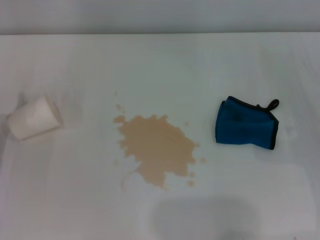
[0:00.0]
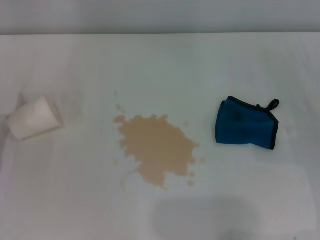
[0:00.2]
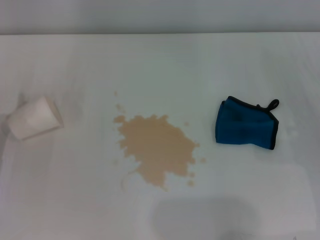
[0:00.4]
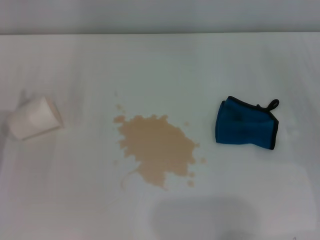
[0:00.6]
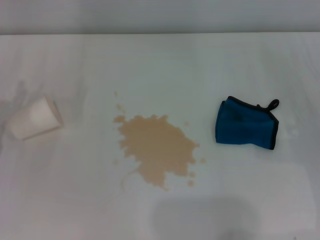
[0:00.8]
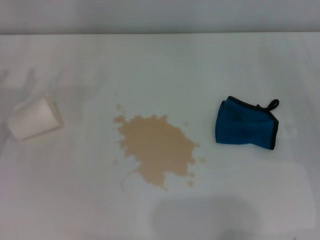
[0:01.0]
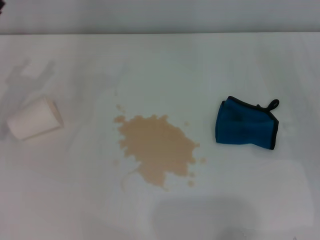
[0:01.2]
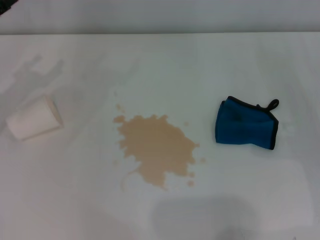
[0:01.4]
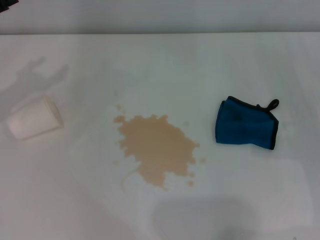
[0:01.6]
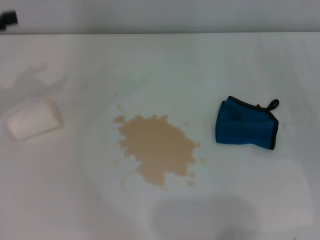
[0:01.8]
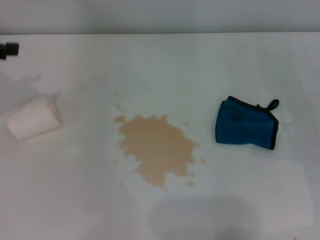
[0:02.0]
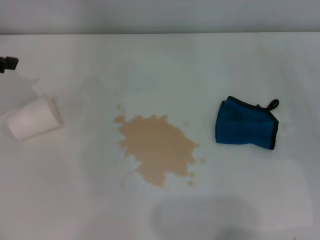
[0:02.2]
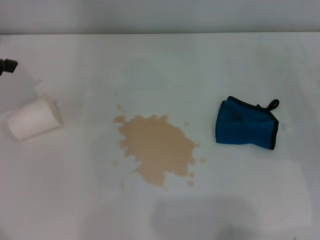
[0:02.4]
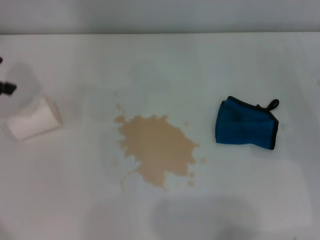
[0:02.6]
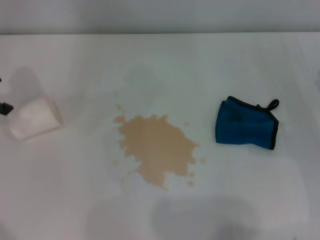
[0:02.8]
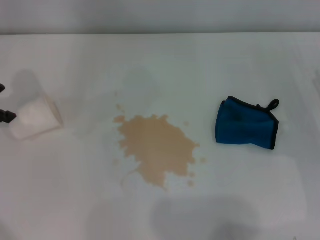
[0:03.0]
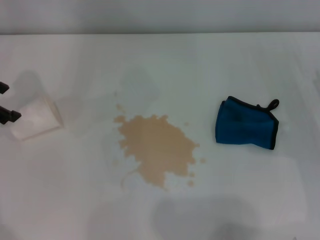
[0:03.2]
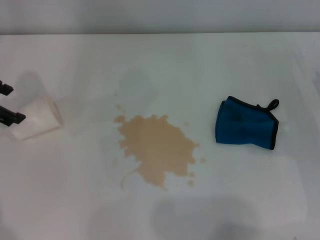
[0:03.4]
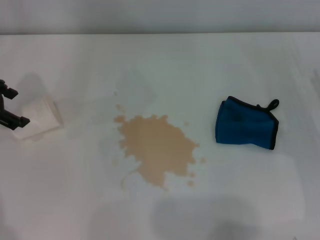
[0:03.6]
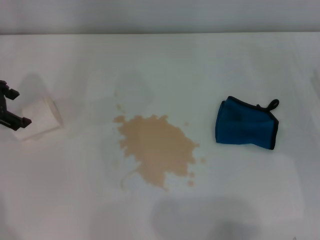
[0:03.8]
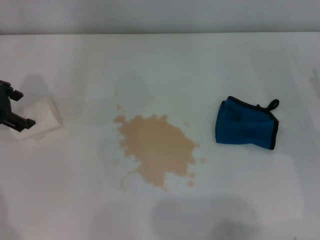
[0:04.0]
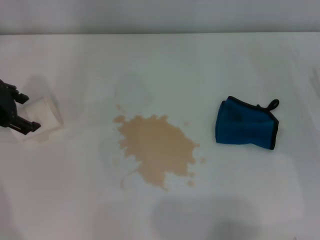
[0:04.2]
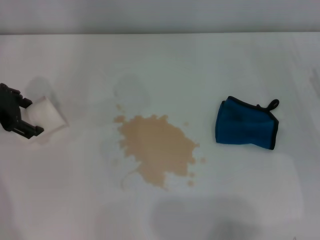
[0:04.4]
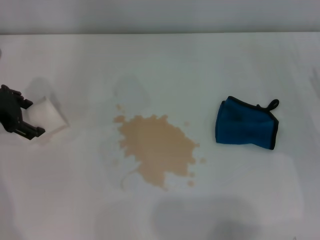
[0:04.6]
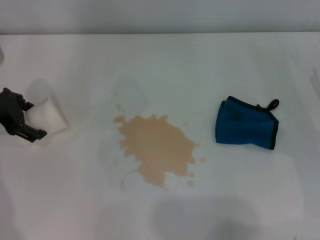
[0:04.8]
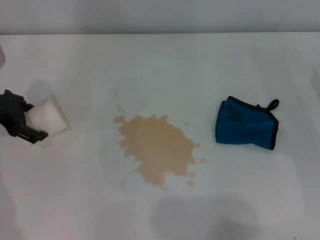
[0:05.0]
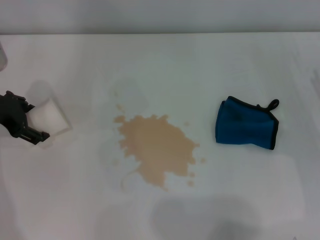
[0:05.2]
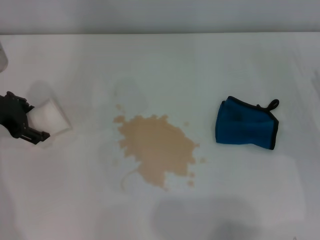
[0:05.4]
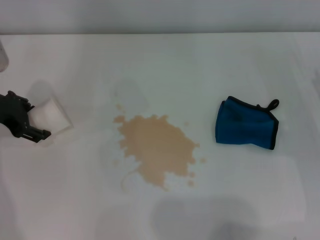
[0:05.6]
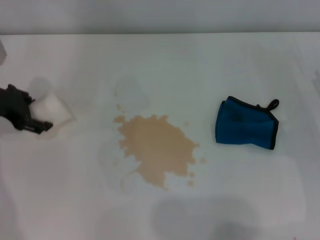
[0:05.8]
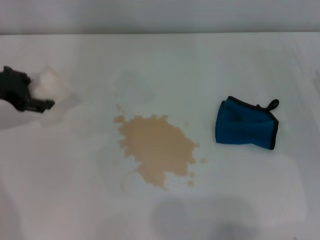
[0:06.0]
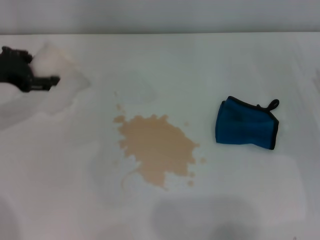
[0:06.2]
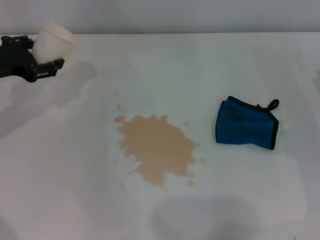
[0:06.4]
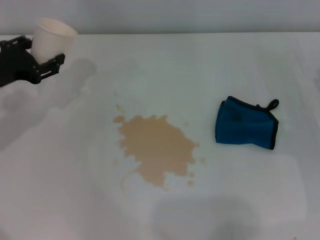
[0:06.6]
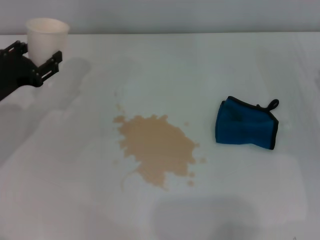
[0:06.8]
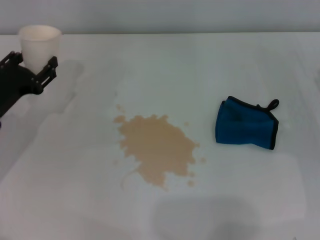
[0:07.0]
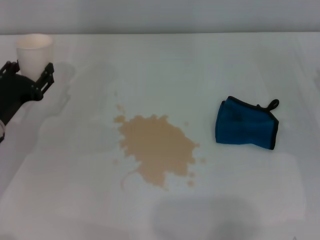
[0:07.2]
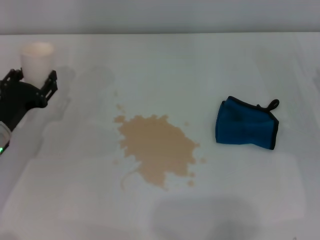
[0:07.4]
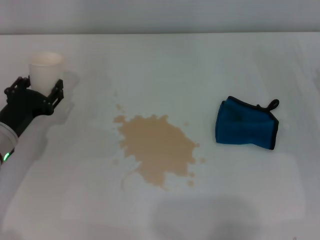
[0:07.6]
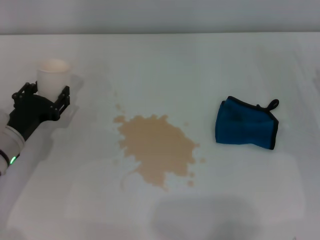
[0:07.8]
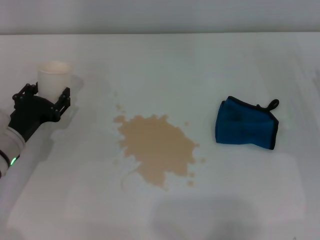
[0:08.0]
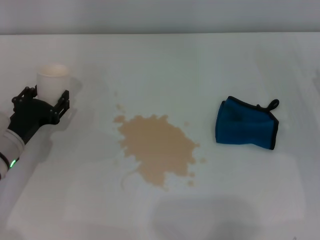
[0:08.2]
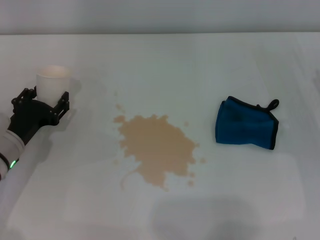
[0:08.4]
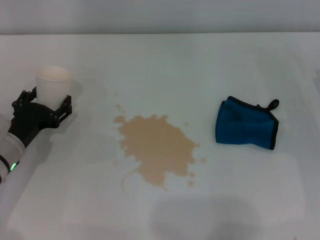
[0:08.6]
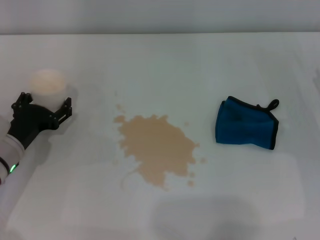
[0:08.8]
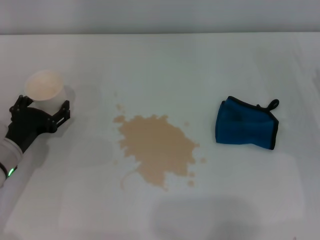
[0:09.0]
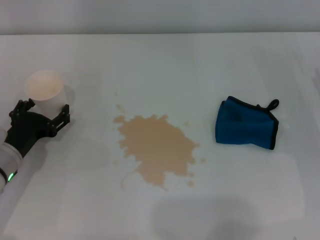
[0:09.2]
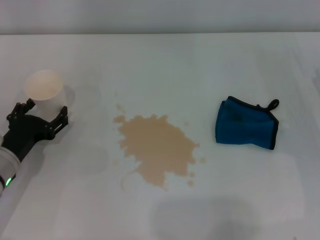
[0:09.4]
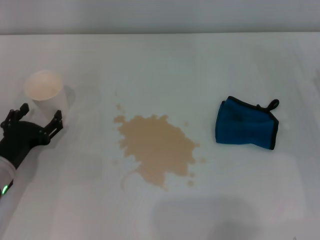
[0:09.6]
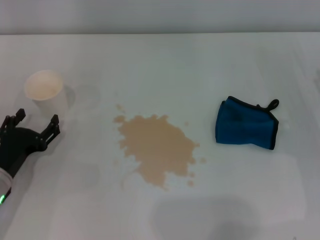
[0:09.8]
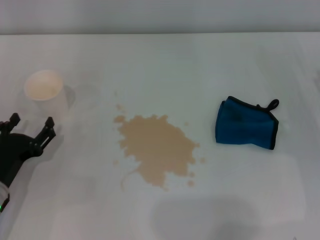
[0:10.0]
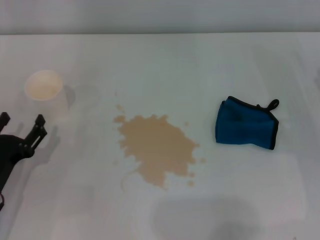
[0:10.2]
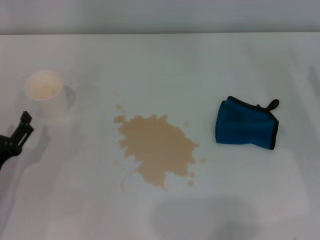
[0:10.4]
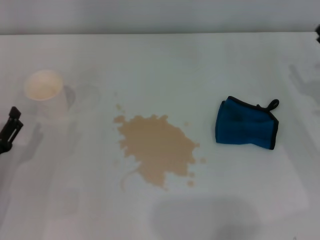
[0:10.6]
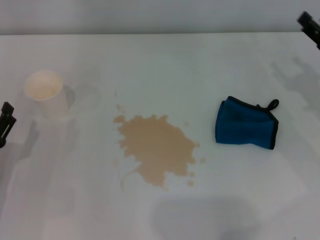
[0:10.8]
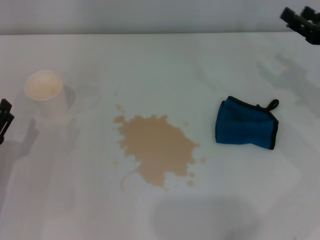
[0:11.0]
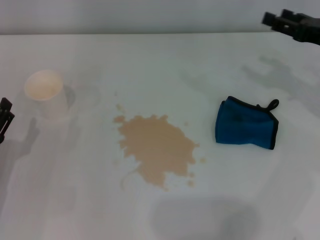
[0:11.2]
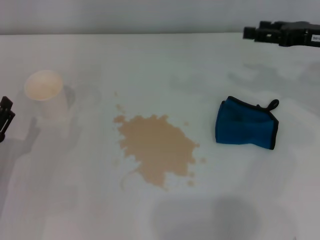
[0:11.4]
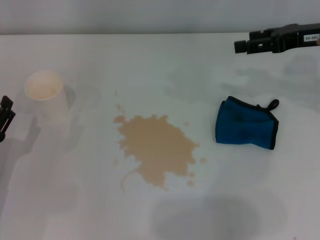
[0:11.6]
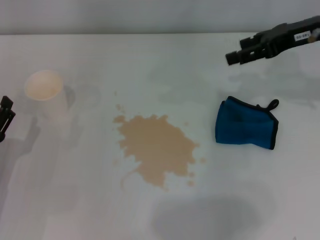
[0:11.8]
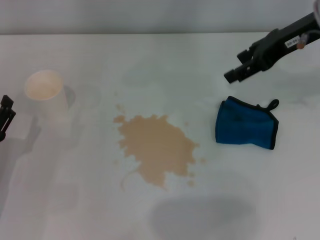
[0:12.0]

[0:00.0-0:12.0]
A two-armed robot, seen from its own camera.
Step, 0:05.6 to 0:08.8: Stand the paper cup upright with the left gripper.
0:00.0 to 0:01.6: The left gripper shifts about 20 cm upward and forward.
0:03.0 to 0:04.4: The left gripper goes some 5 cm downward.
0:04.4 to 0:06.0: The left gripper closes up.
0:06.0 to 0:07.6: The left gripper heads downward and backward, covering roughly 15 cm.
0:07.6 to 0:09.0: The left gripper opens up.
0:09.0 to 0:10.4: The left gripper travels backward by about 10 cm.
0:10.4 to 0:12.0: The right gripper shifts roughly 25 cm upward, to the left and forward.

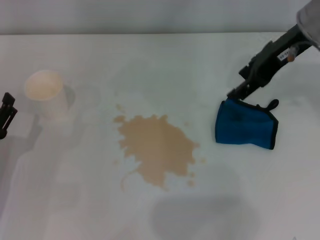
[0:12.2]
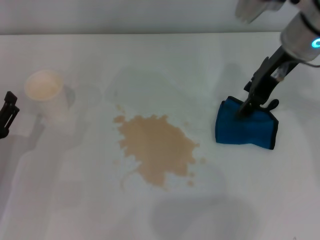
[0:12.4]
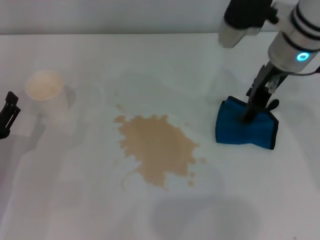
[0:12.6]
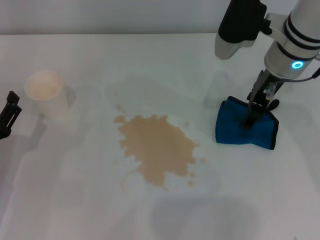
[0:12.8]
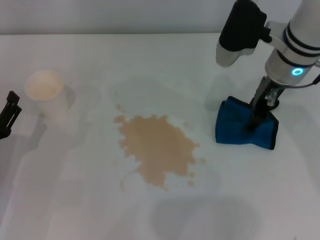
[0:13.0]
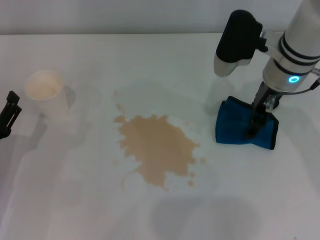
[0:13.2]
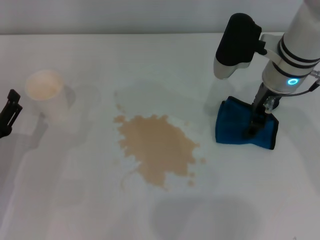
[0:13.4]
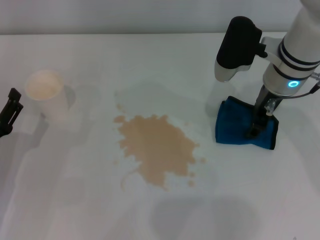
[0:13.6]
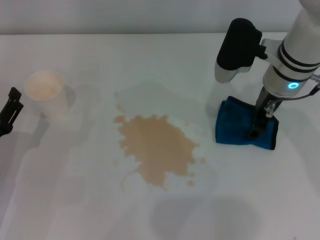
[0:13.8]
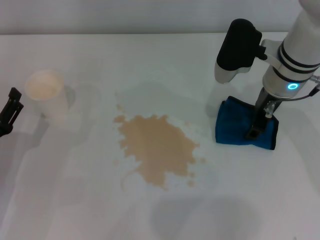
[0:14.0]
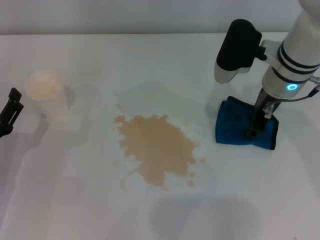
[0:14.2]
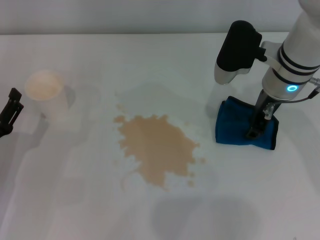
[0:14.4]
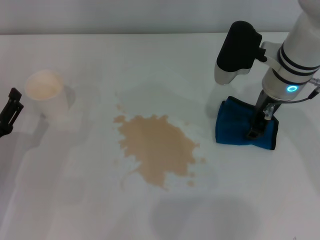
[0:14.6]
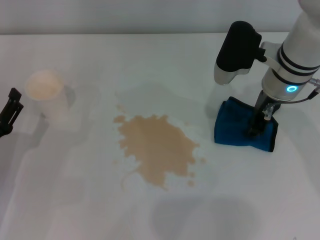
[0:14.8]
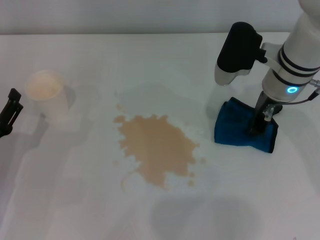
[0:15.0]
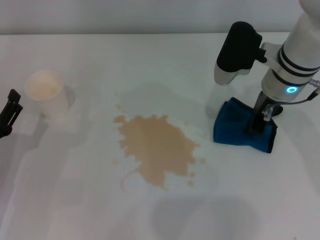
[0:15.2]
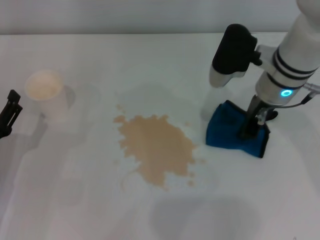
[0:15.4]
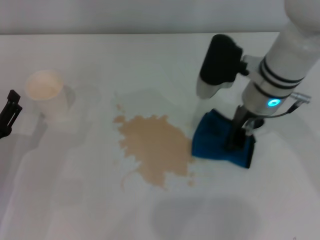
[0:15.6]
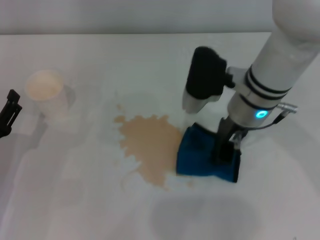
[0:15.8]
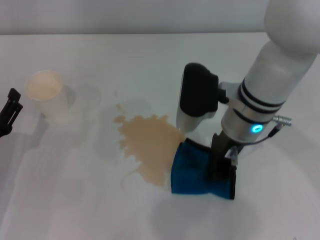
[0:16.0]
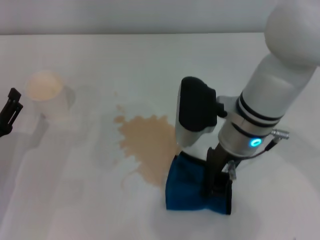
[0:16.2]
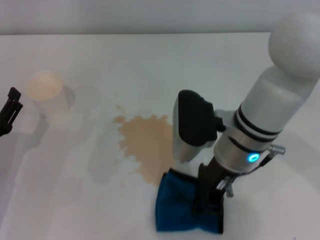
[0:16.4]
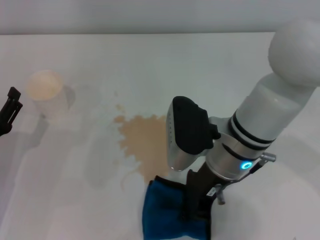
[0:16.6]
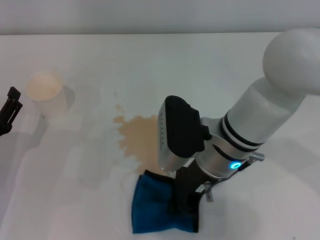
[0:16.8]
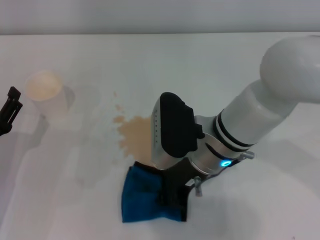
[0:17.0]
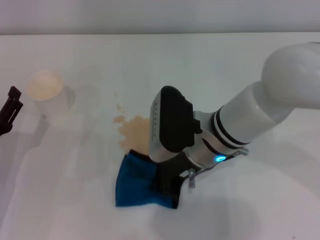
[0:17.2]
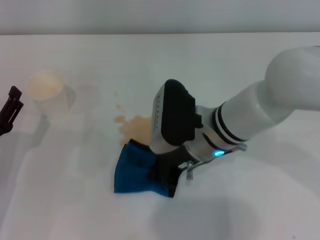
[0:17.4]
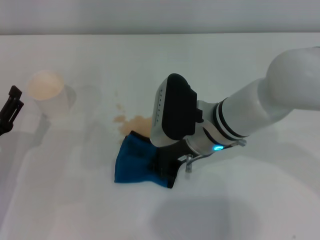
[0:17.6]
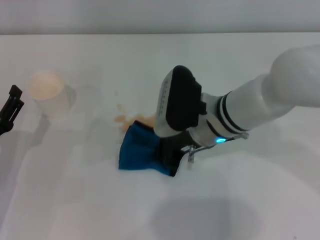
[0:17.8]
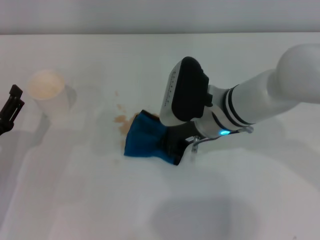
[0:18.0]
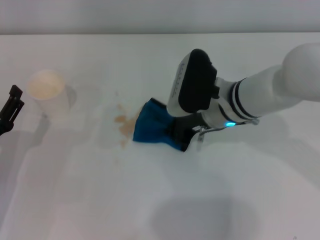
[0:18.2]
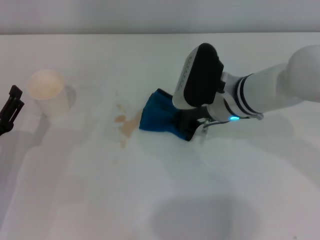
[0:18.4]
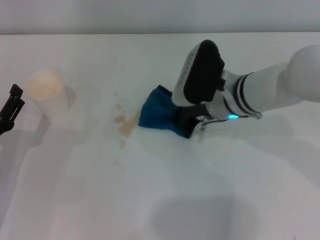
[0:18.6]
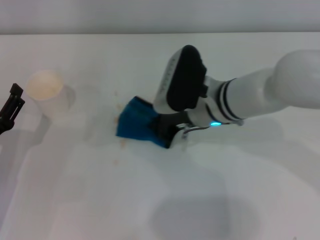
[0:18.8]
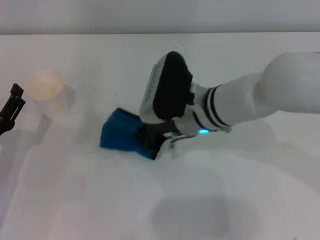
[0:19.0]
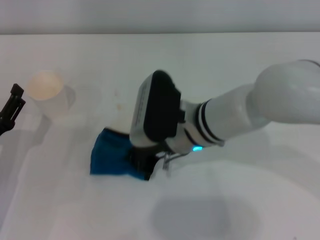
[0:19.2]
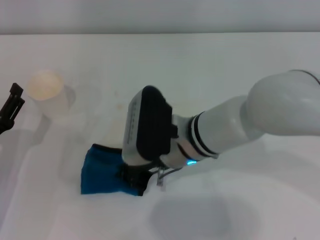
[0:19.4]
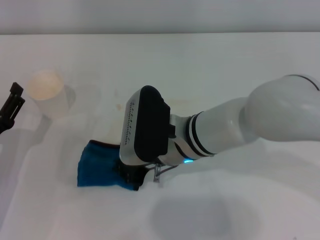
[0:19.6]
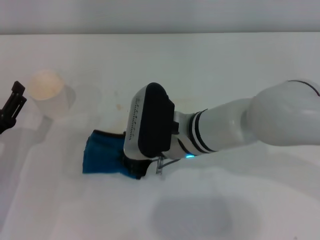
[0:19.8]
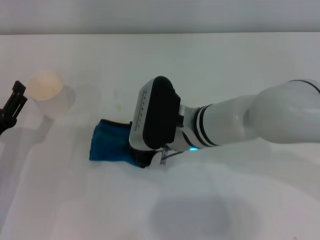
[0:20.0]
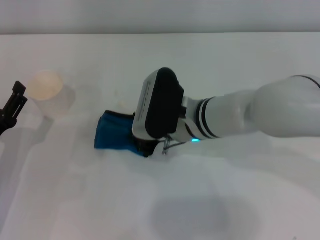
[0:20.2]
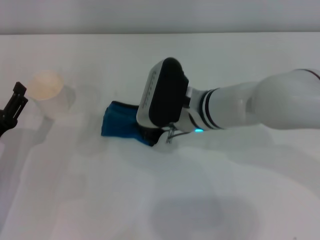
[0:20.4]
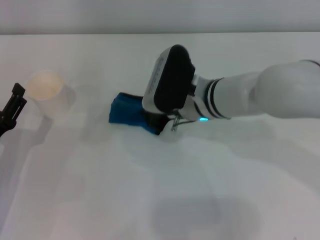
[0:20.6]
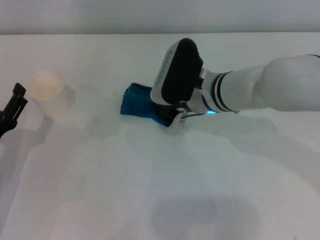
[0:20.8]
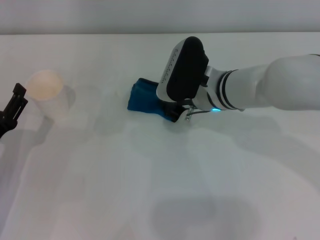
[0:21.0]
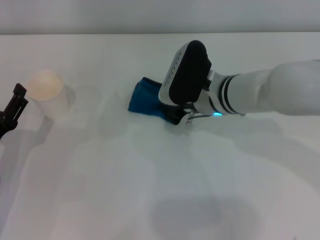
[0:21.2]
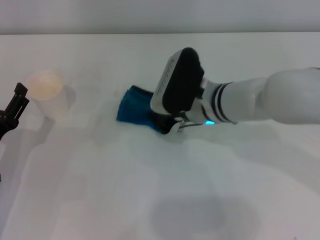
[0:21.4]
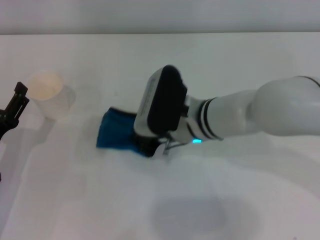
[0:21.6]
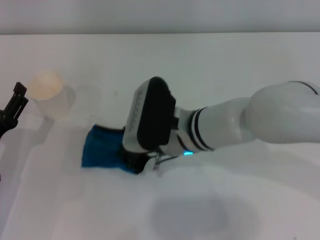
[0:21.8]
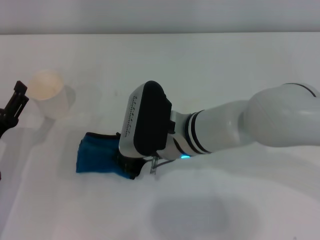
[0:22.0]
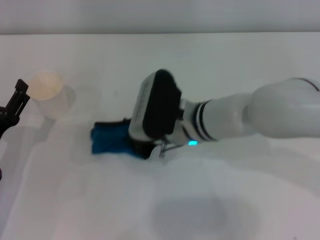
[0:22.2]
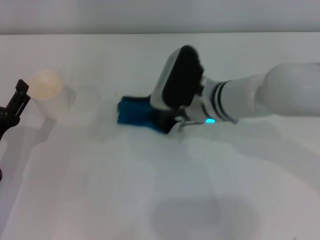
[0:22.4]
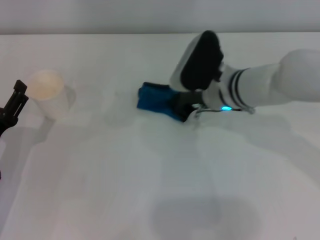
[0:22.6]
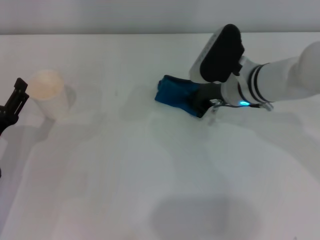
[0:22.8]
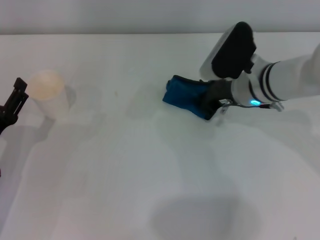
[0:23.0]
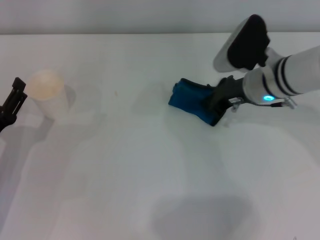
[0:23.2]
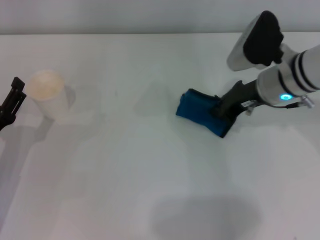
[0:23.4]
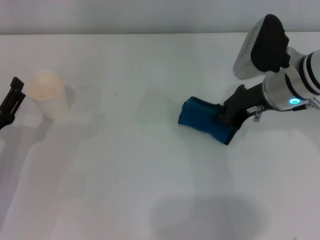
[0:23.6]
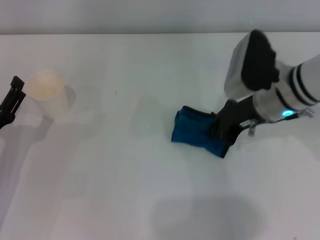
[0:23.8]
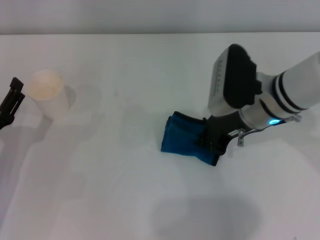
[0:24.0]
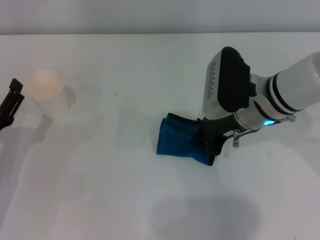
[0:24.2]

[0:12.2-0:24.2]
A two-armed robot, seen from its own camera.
Step, 0:12.2 to 0:15.0: Grasp the rag with the right gripper.
Step, 0:15.2 to 0:24.0: Wipe the stains off the table with the right gripper.
0:12.2 to 0:13.8: The right gripper heads downward, covering some 10 cm.
0:13.8 to 0:15.2: The right gripper closes up.
0:15.2 to 0:16.6: The right gripper goes roughly 10 cm backward and to the left.
0:16.6 to 0:18.2: The right gripper goes approximately 5 cm forward.
0:18.2 to 0:19.8: The right gripper heads to the left, covering some 5 cm.
0:19.8 to 0:21.2: The right gripper goes roughly 10 cm forward and to the right.
0:21.2 to 0:22.6: The right gripper moves approximately 5 cm to the left and comes back.
